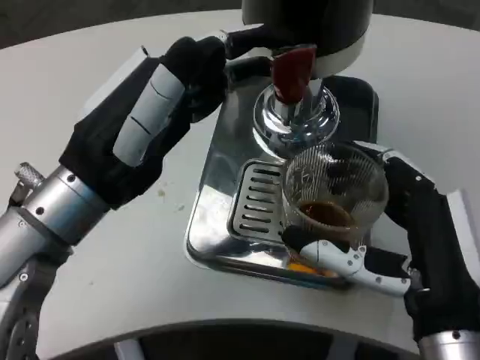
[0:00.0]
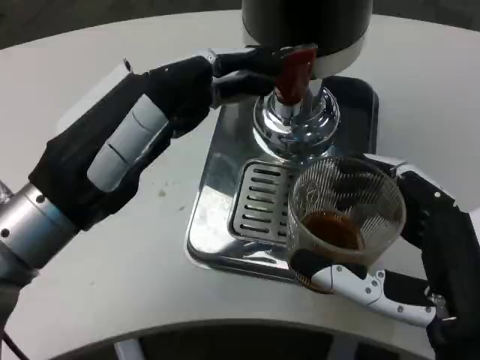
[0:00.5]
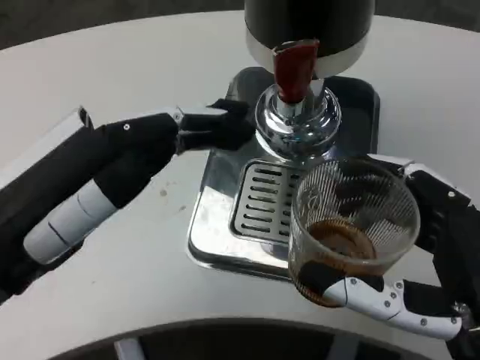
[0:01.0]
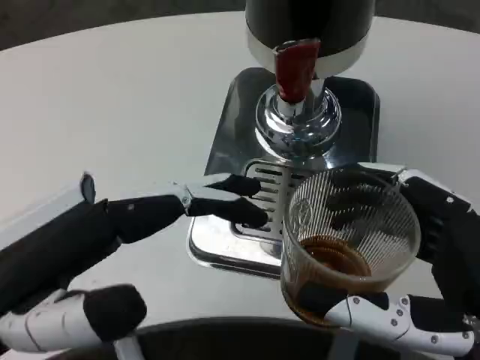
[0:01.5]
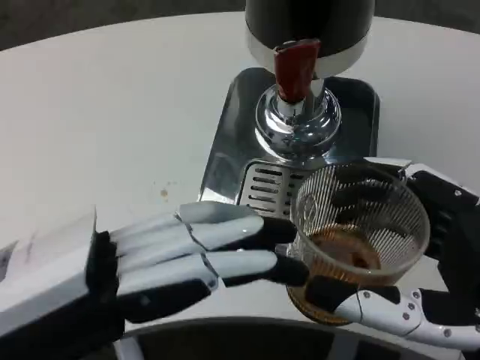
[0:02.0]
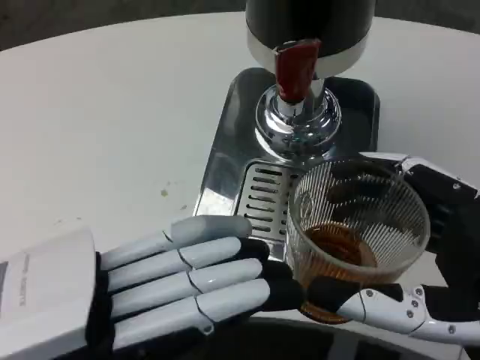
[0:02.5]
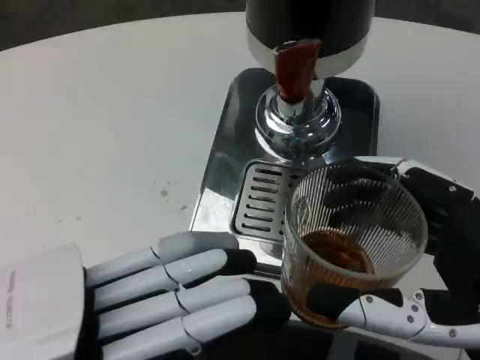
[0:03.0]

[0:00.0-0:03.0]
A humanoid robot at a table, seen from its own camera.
Task of the whole recording: Grasp the cup under the faucet to collect the drink, then remove the cup.
0:00.0 to 0:01.5: The right hand is displaced backward by approximately 5 cm, while the left hand moves backward and to the left, about 10 cm.

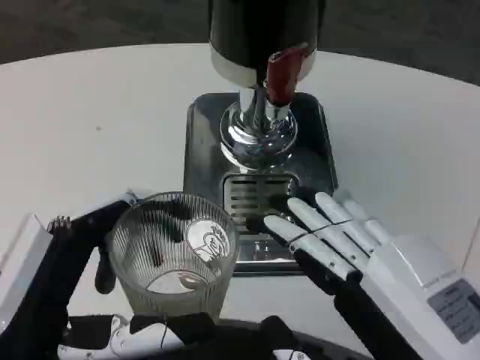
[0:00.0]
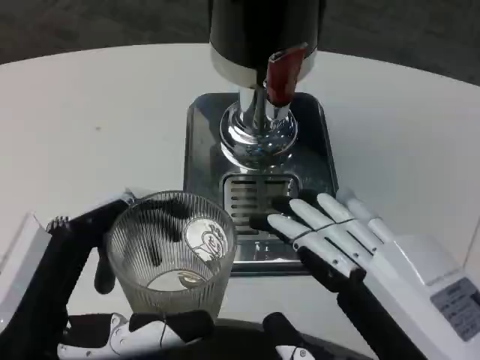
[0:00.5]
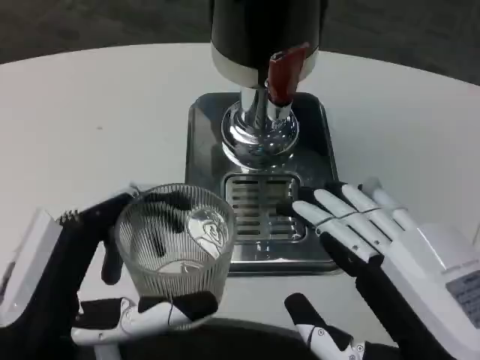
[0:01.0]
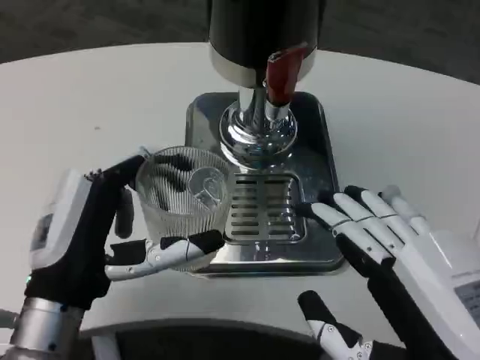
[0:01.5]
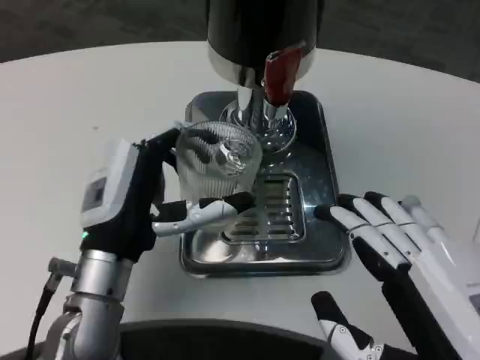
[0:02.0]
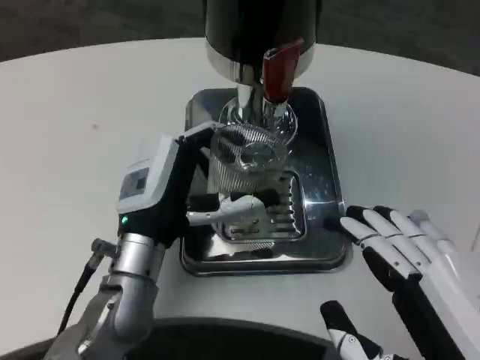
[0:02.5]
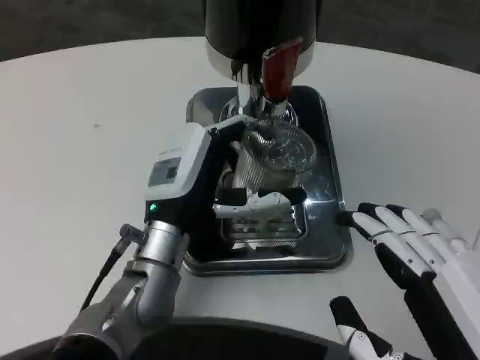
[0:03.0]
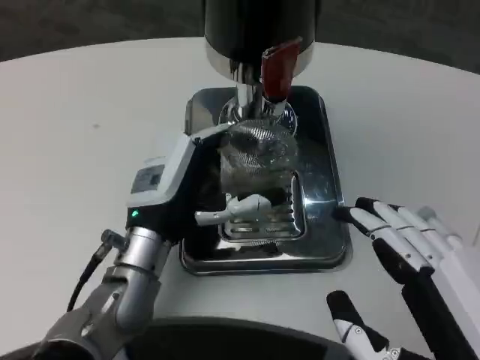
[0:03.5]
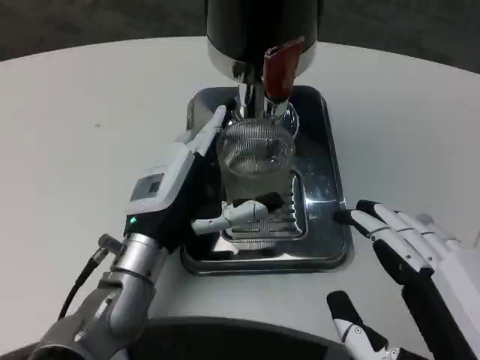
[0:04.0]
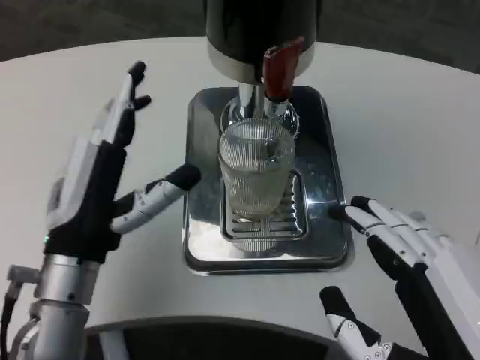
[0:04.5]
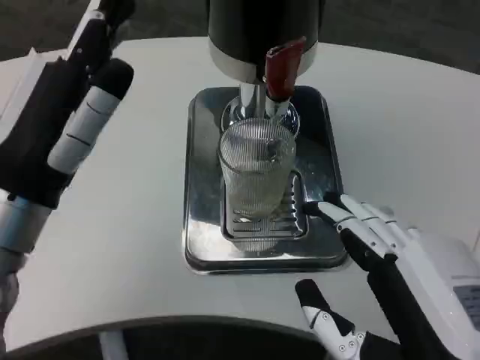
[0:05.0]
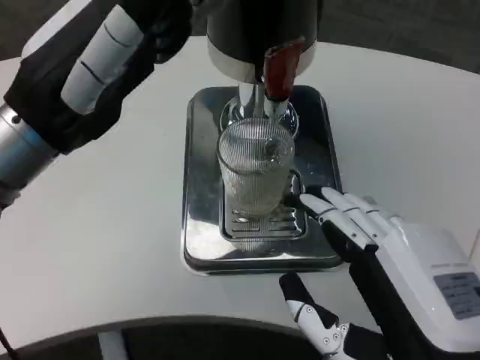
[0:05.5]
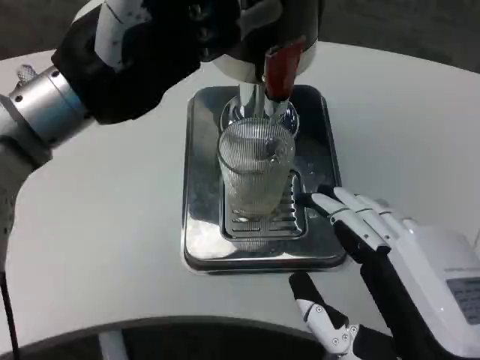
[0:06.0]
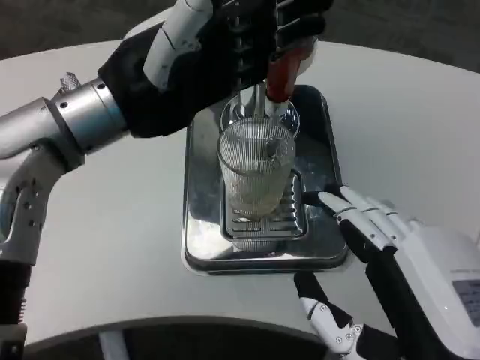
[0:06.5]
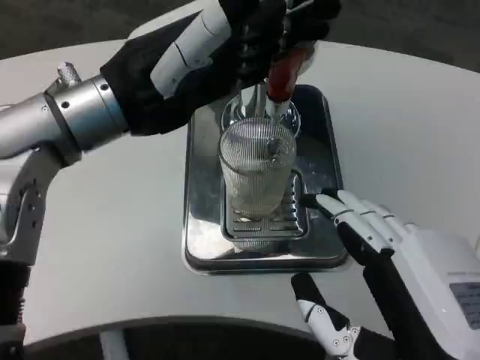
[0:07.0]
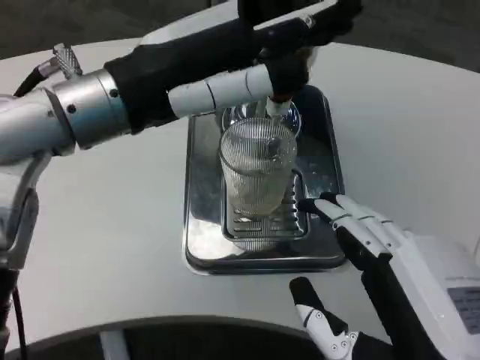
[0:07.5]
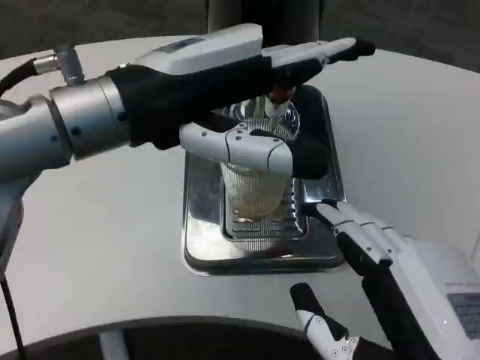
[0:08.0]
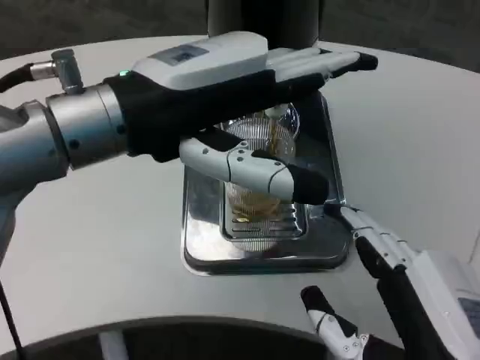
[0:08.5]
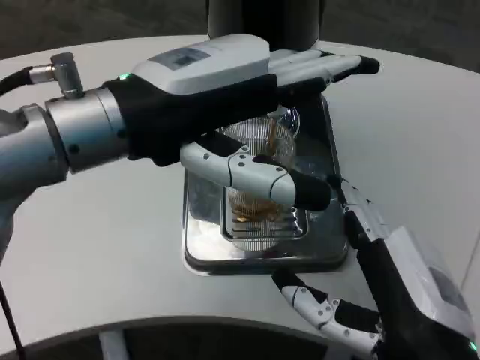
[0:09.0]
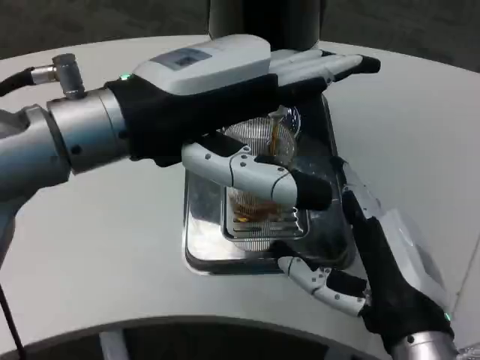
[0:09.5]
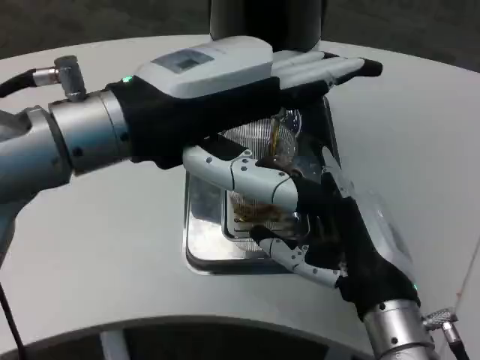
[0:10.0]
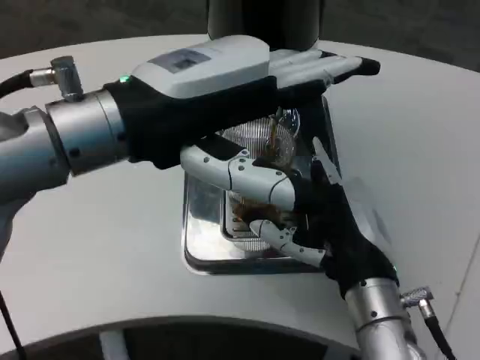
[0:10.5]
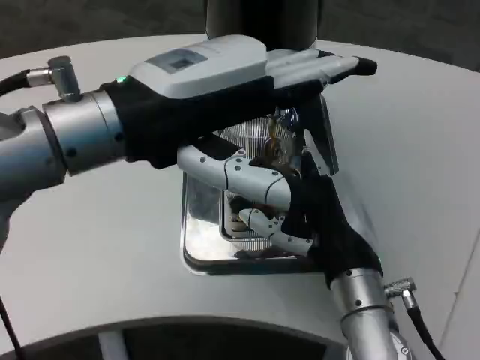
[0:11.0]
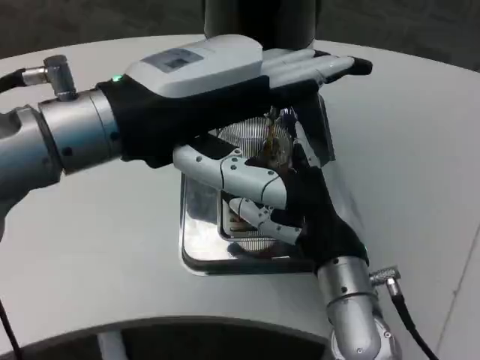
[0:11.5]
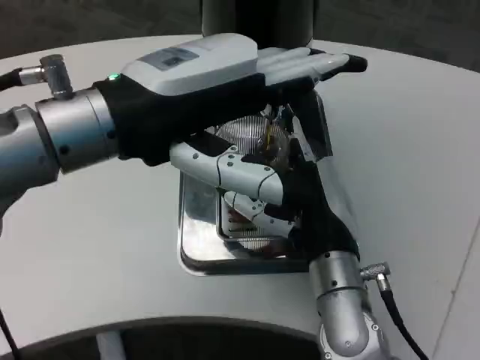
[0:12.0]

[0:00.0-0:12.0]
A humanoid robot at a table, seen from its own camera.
Task of the whole recording: Grasp the cup under the faucet to collect the drink, then remove the cup.
0:00.0 to 0:02.0: The left hand goes roughly 15 cm forward.
0:04.0 to 0:06.0: The left hand goes about 20 cm upward.
0:06.0 to 0:08.0: The left hand changes place by roughly 5 cm.
0:08.0 to 0:10.0: The right hand is displaced forward by roughly 15 cm.
0:10.0 to 0:12.0: The right hand travels forward by some 5 cm.

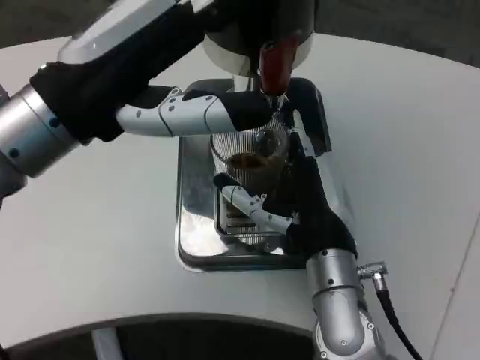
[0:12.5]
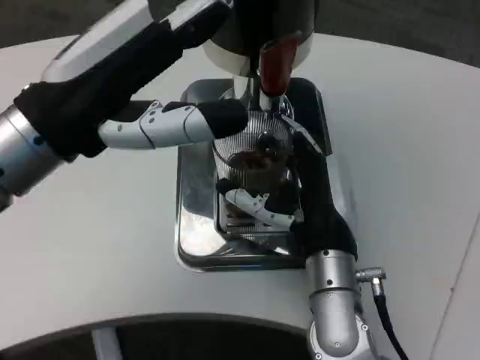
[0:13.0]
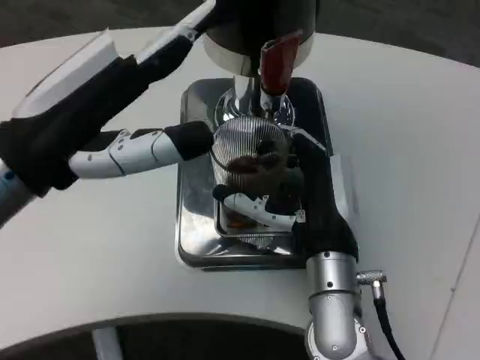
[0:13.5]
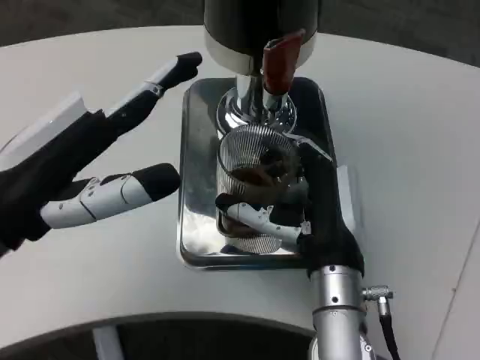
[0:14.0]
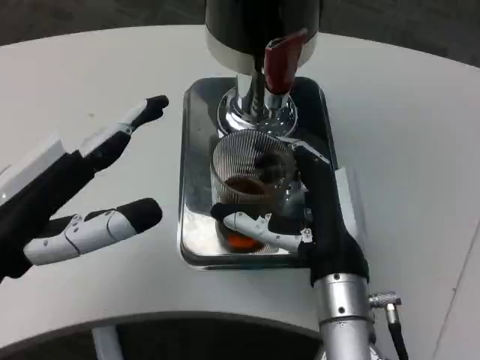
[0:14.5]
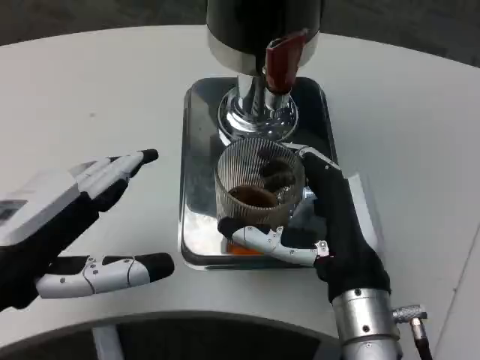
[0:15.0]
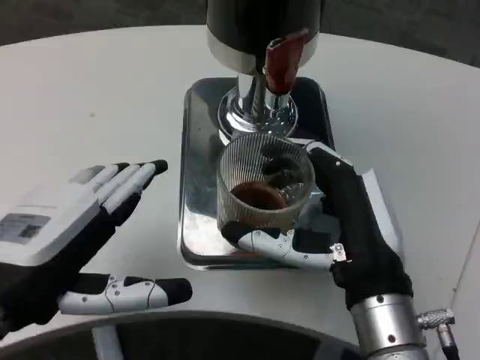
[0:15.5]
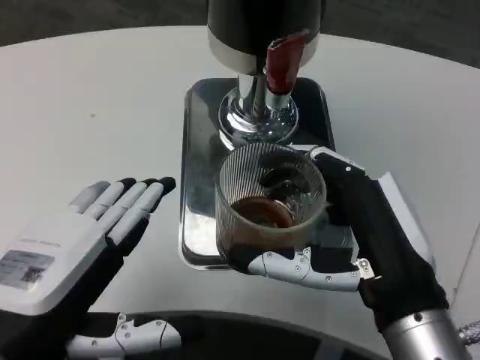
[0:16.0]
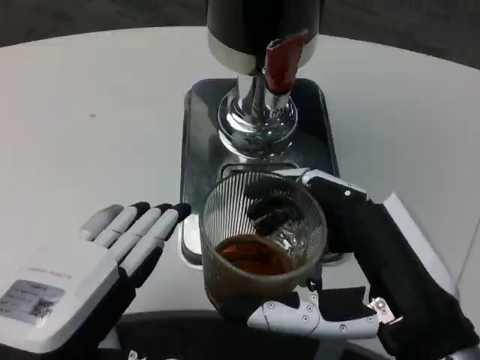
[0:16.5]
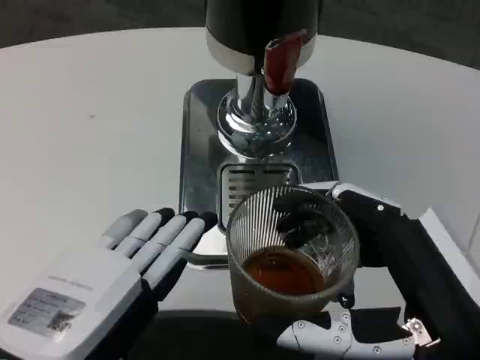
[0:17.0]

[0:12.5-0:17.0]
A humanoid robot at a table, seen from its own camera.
Task of the whole recording: Grasp the cup under the faucet to collect the drink, then remove the cup.
0:12.5 to 0:14.5: The left hand shifts about 10 cm downward, backward and to the left.
0:14.5 to 0:17.0: The left hand is displaced backward and to the right by roughly 10 cm. The right hand travels backward, to the right and upward by roughly 15 cm.

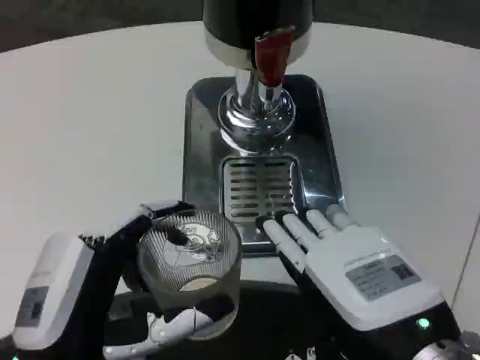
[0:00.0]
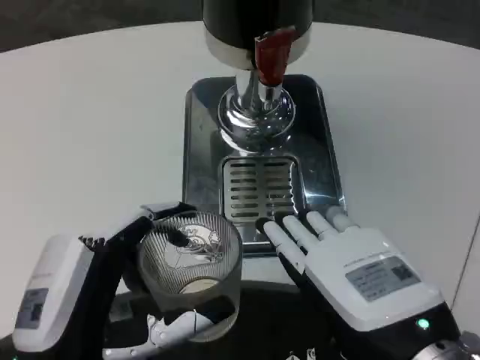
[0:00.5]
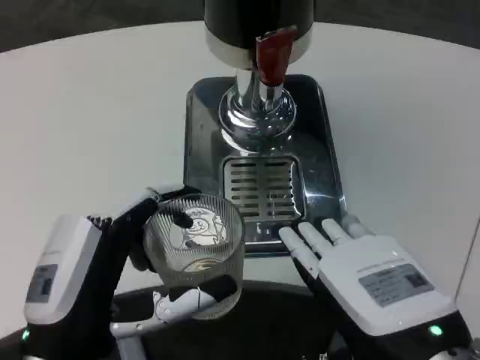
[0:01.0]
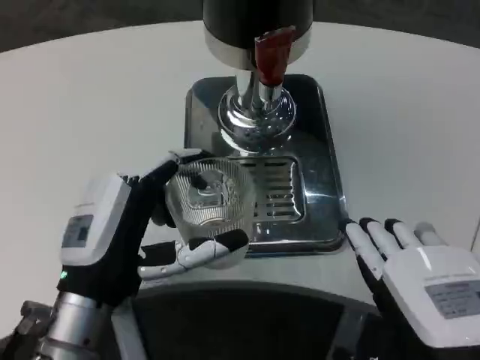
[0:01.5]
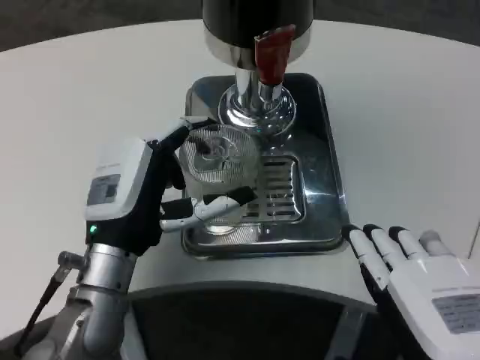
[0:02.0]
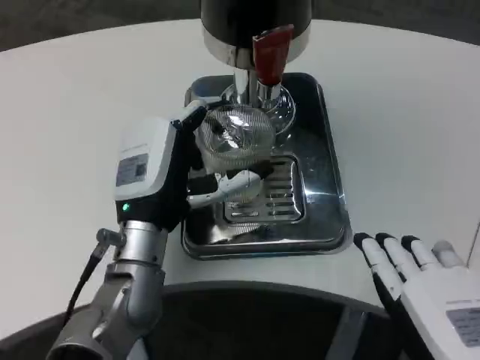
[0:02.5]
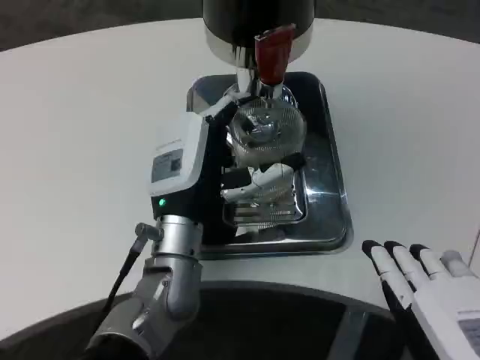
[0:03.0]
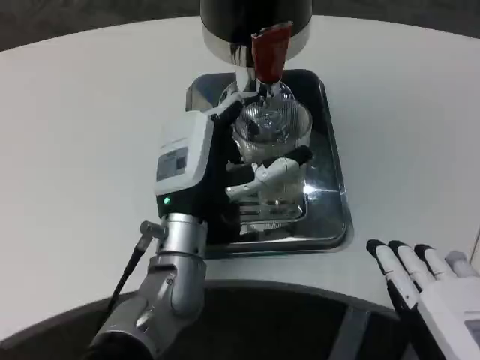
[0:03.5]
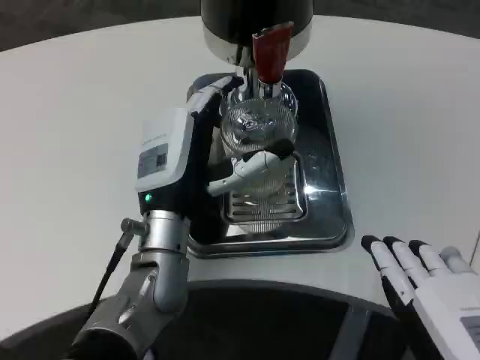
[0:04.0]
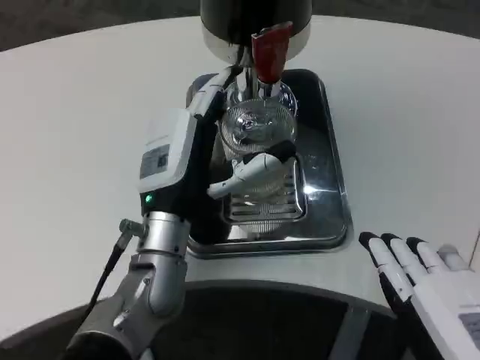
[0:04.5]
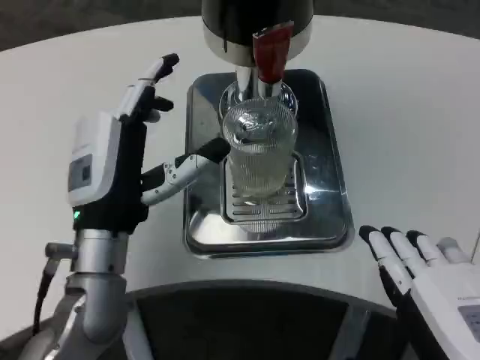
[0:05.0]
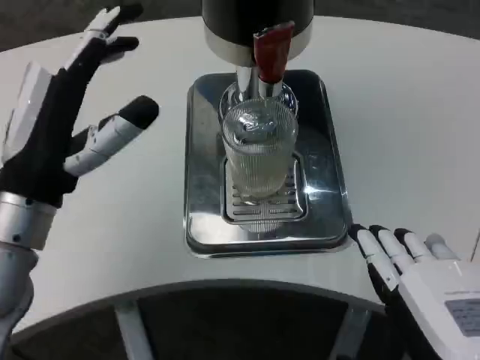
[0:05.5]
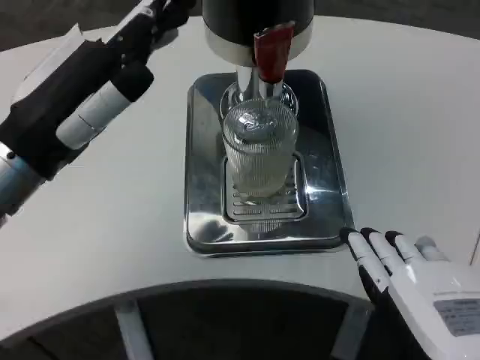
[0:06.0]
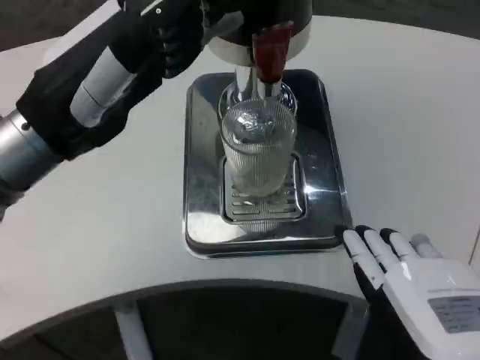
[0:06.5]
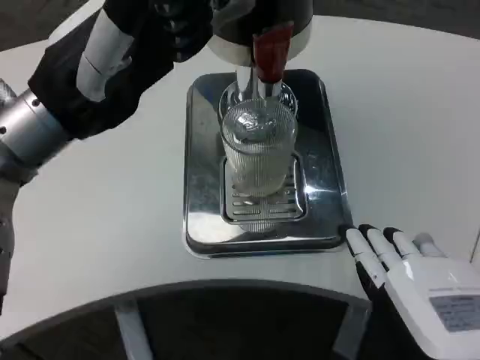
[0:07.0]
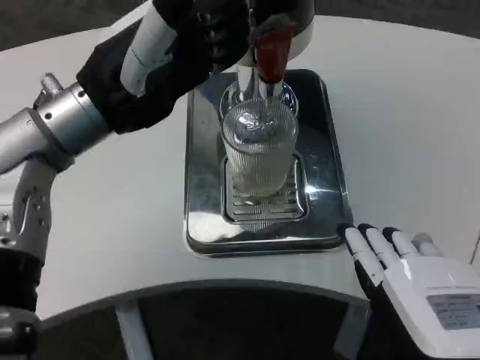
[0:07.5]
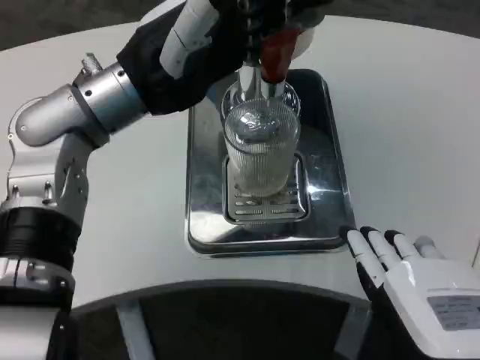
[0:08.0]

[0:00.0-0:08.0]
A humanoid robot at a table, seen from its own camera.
Task of the whole recording: Grasp the cup under the faucet to collect the drink, then remove the cup.
0:00.0 to 0:02.0: The left hand shifts about 15 cm forward.
0:02.0 to 0:04.0: The left hand heads to the right, covering about 5 cm.
0:04.0 to 0:06.0: The left hand moves to the left, upward and backward, about 20 cm.
0:06.0 to 0:08.0: The left hand moves forward and to the right, about 10 cm.
